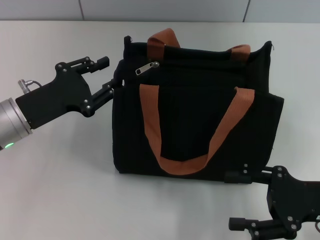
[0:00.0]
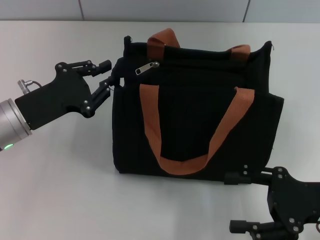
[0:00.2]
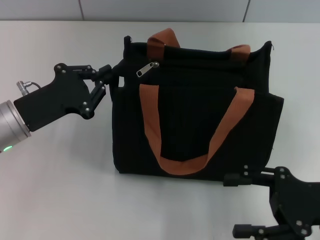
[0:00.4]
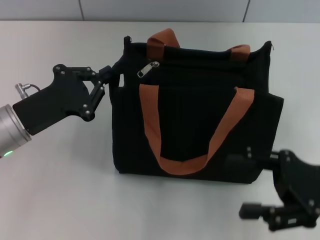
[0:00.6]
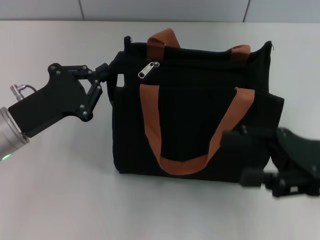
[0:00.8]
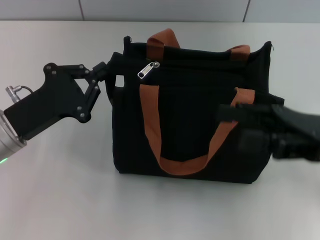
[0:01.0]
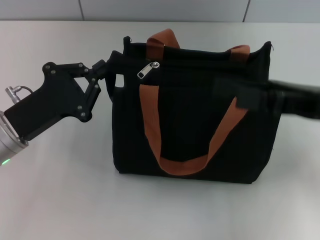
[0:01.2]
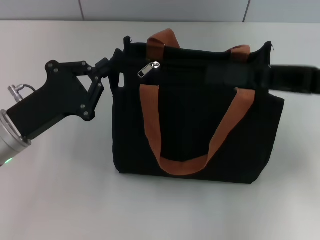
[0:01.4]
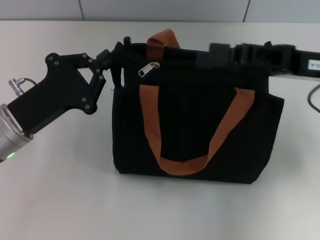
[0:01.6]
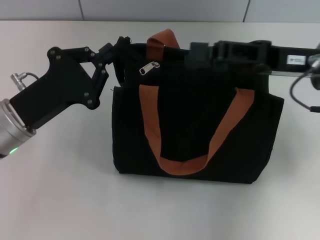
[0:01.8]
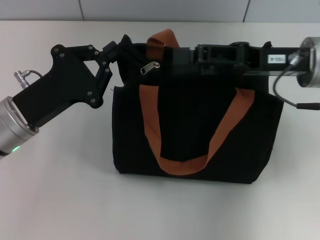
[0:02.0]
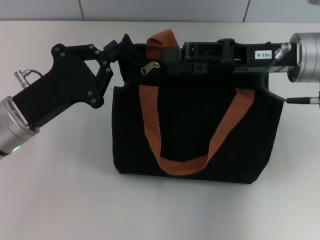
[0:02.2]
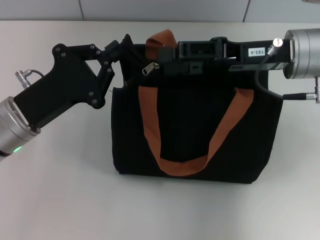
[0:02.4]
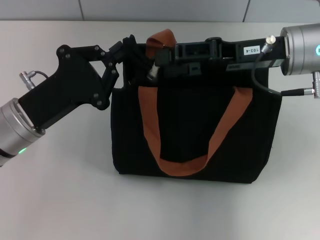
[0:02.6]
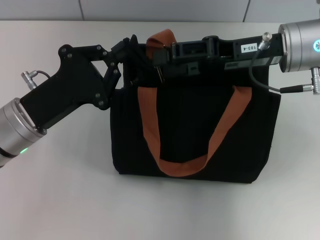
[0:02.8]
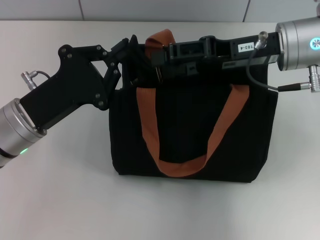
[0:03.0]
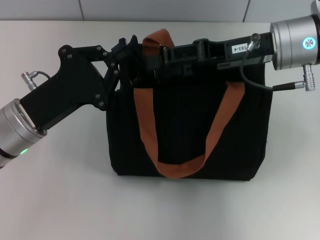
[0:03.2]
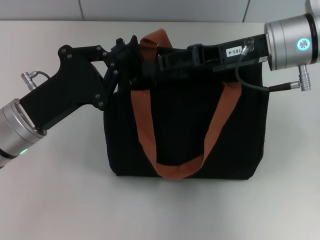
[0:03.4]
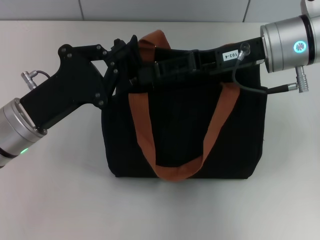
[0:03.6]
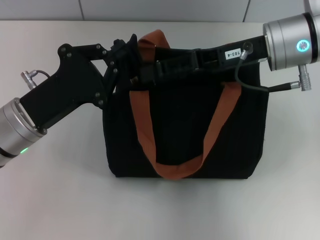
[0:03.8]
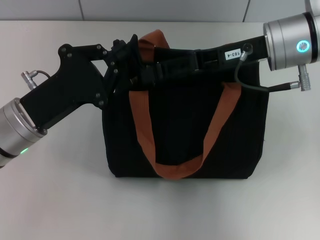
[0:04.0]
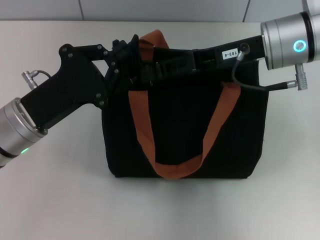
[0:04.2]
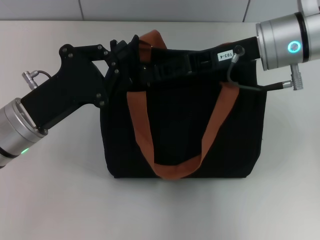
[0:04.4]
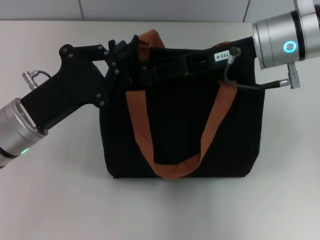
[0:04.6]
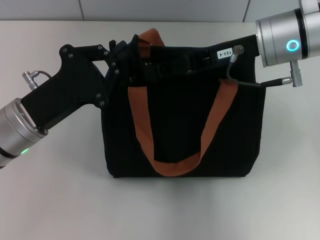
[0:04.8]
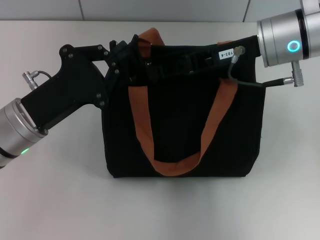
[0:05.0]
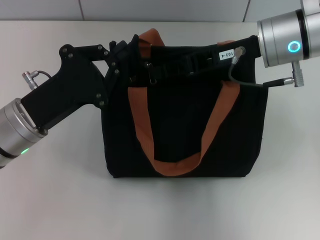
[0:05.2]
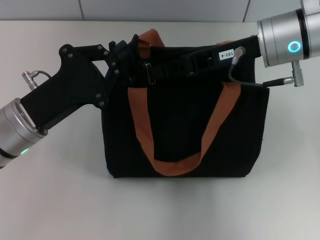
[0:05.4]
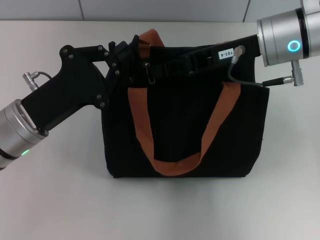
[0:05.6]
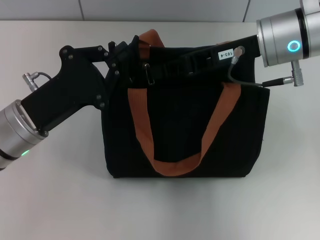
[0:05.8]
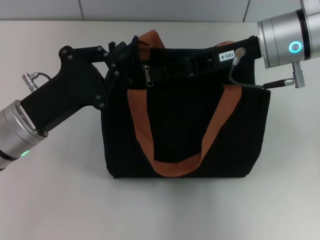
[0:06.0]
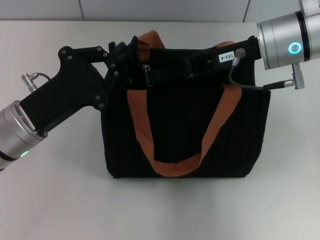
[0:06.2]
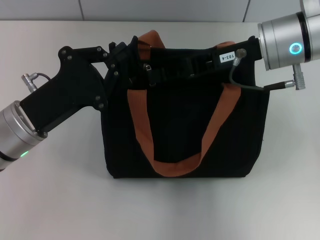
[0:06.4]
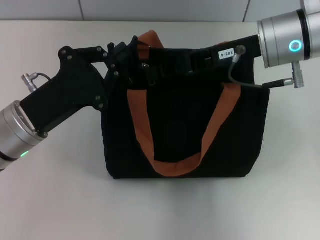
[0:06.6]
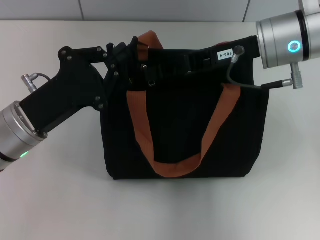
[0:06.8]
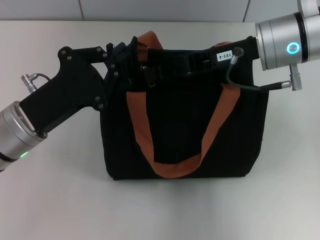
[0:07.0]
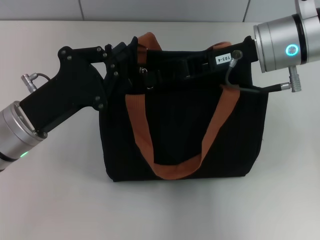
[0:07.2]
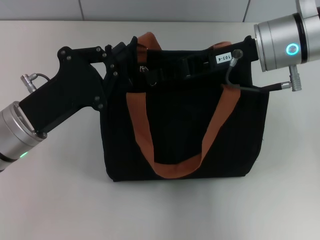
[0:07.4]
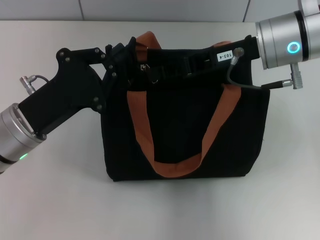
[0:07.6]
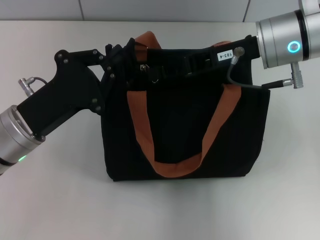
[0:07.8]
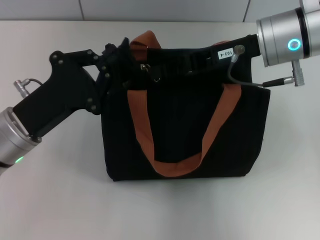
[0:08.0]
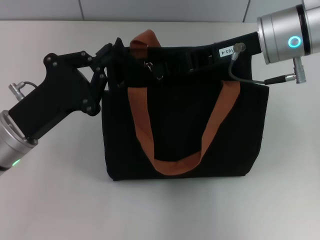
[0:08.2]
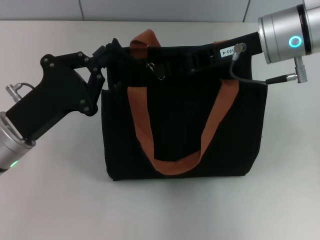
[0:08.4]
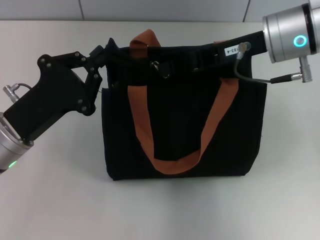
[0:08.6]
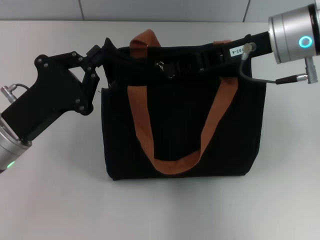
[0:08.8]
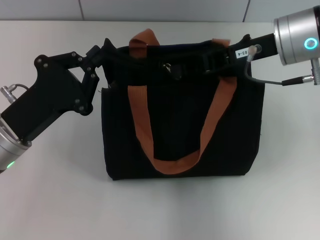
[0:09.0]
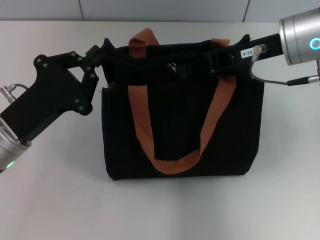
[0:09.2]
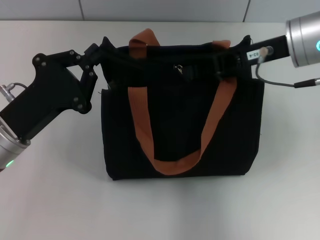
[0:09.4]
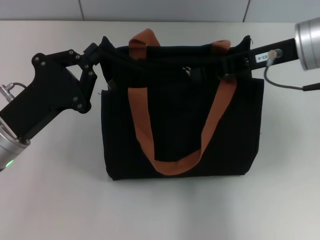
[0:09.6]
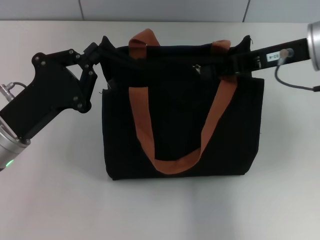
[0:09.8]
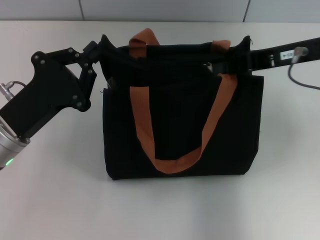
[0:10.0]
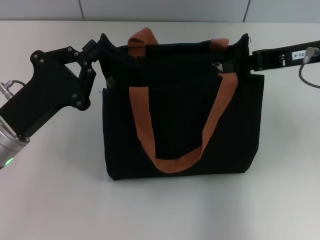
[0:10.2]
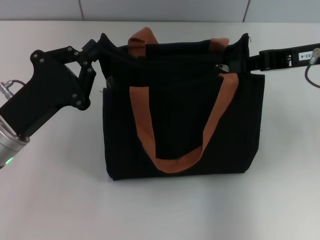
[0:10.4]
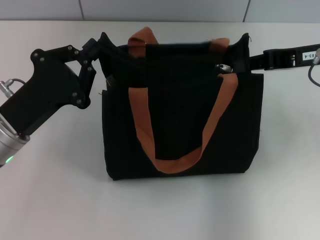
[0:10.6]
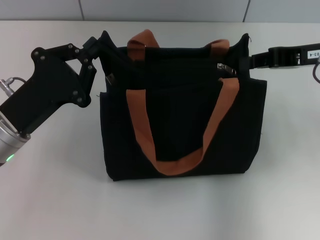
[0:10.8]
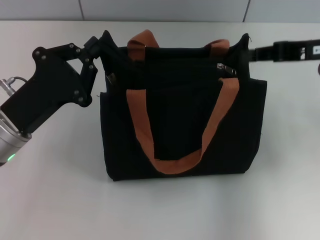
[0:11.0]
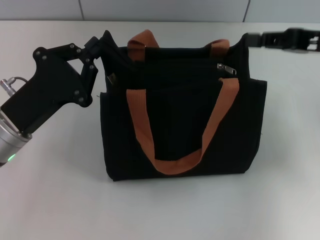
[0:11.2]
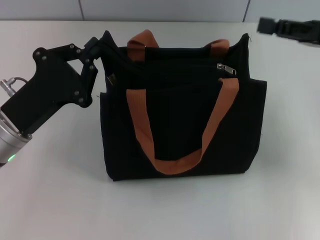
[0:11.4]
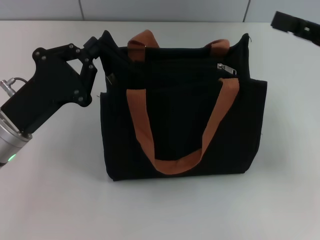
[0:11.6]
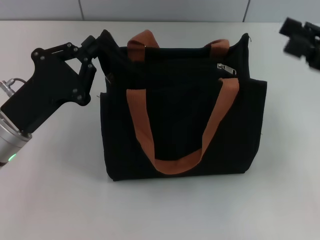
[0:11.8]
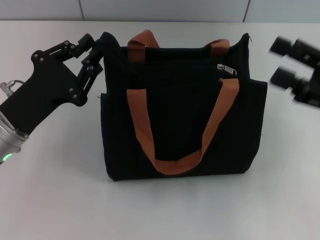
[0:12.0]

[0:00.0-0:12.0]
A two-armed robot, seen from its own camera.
Step, 0:00.0 to 0:11.0: Pull up the zipper with your right hand.
0:00.0 to 0:01.6: The right gripper travels forward and upward by roughly 15 cm; the left gripper closes its fingers.
0:01.6 to 0:03.0: The right gripper heads to the left, covering roughly 5 cm.
0:03.0 to 0:04.4: The right gripper closes.
0:04.4 to 0:06.0: The right gripper closes its fingers.
0:06.0 to 0:07.6: Neither gripper changes place.
0:07.6 to 0:09.0: The grippers make only small movements.
0:09.0 to 0:10.4: The right gripper goes approximately 10 cm to the right.
0:10.4 to 0:12.0: The right gripper moves backward, downward and to the right, roughly 10 cm, and opens.

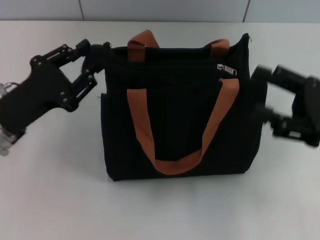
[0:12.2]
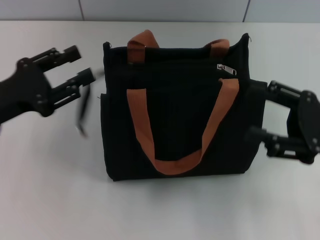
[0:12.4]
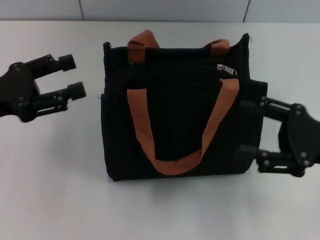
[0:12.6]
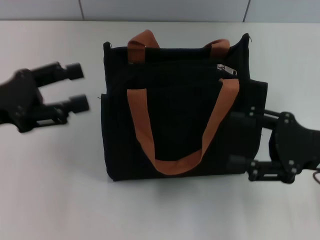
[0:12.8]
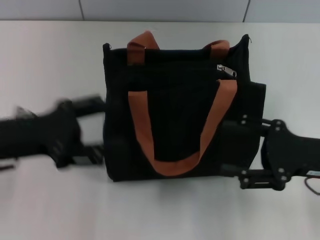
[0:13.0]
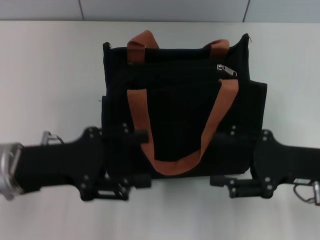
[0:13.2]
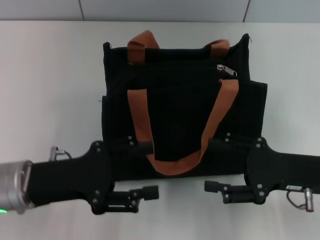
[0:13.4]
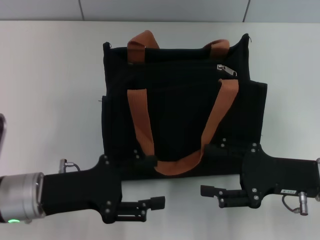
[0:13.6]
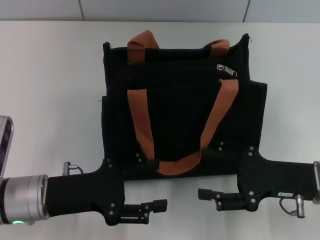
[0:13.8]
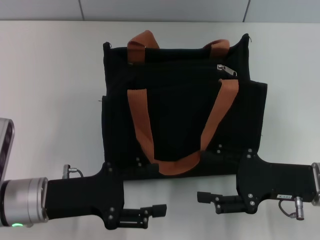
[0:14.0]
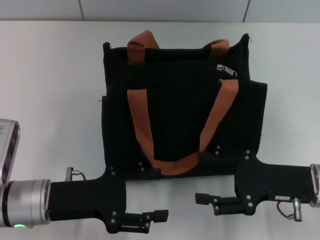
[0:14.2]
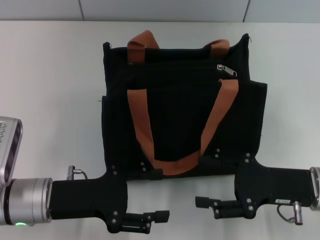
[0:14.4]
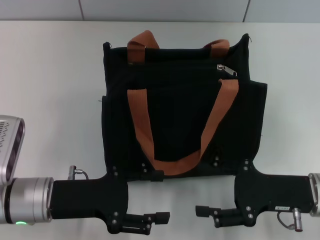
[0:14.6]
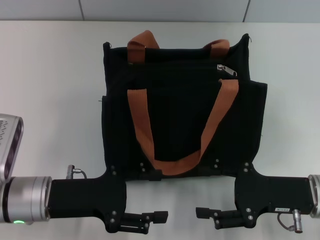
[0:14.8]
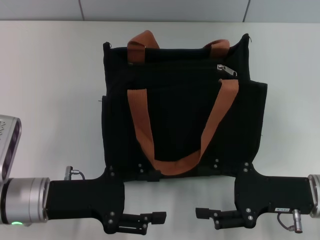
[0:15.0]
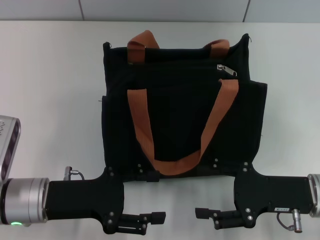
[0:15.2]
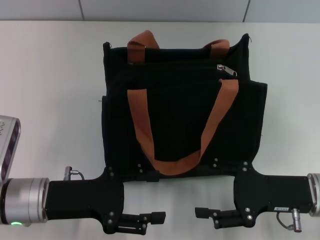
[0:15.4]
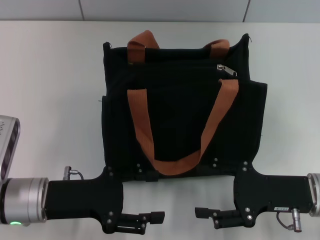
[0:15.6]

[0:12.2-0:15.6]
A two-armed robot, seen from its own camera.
0:12.2 to 0:13.8: The right gripper moves downward, about 5 cm. Meanwhile the left gripper shifts by some 5 cm, and opens up.
0:13.8 to 0:15.6: There are only small adjustments of the grippers.
